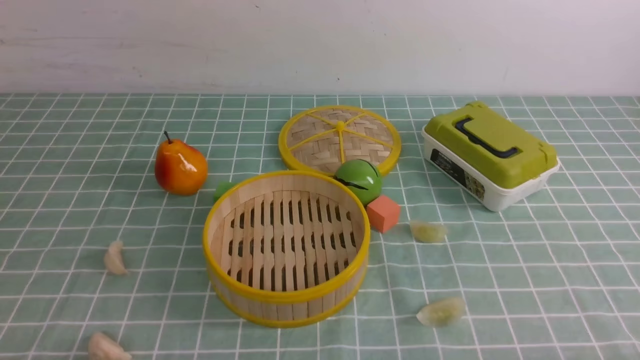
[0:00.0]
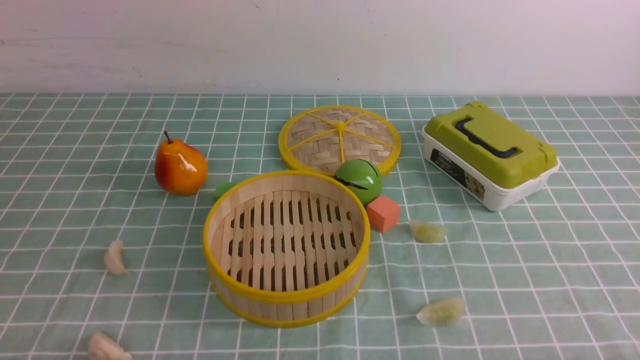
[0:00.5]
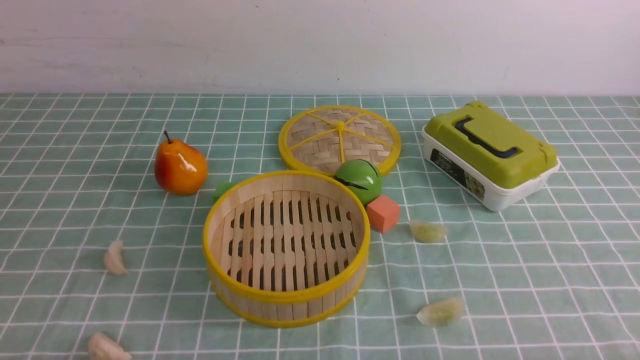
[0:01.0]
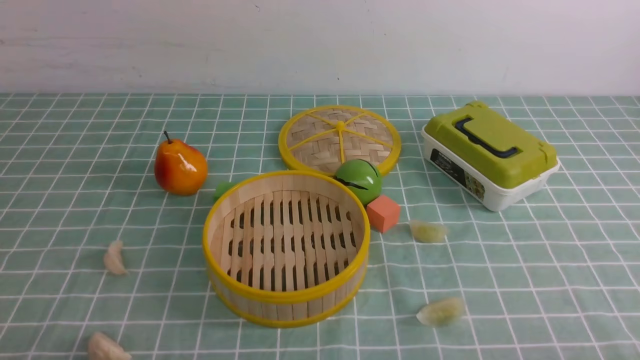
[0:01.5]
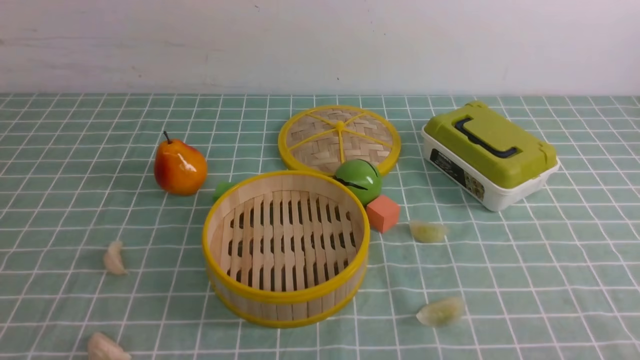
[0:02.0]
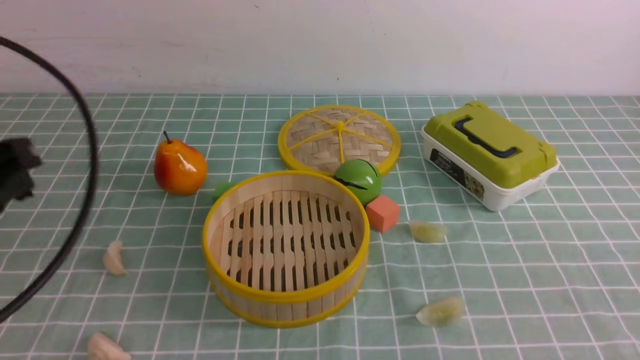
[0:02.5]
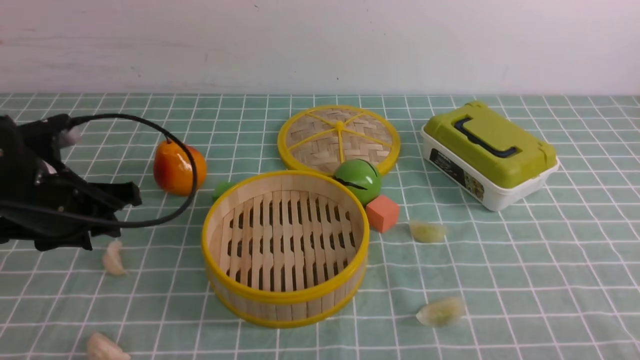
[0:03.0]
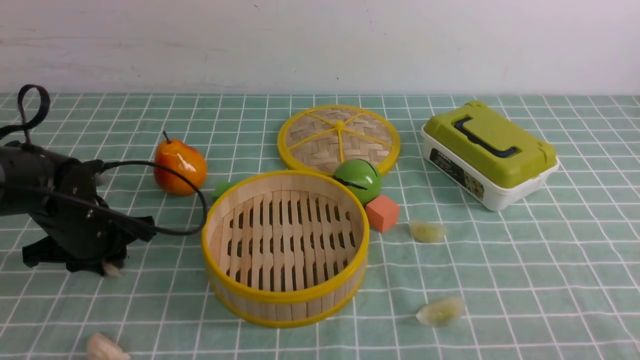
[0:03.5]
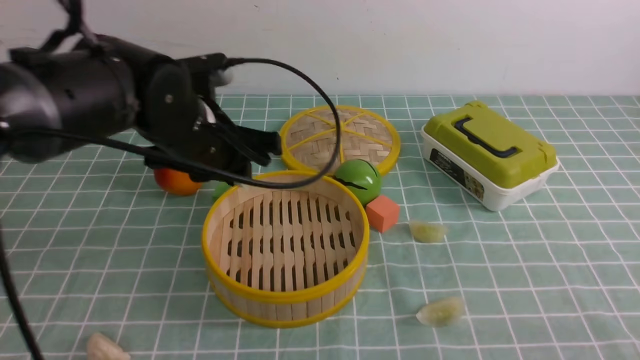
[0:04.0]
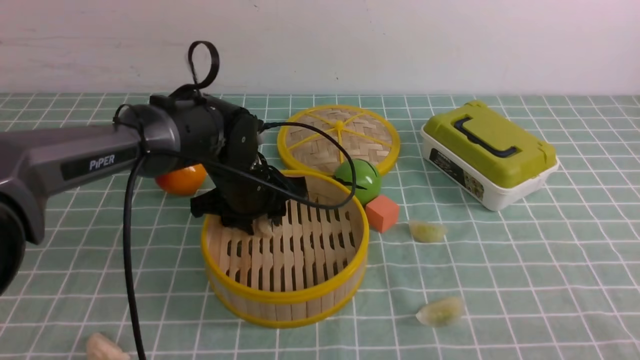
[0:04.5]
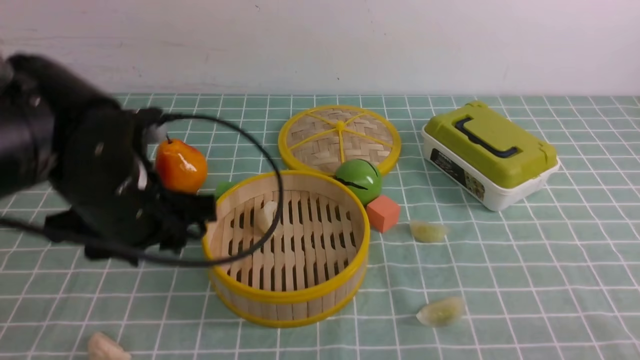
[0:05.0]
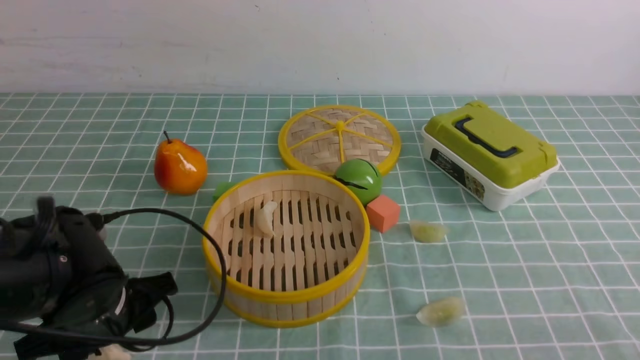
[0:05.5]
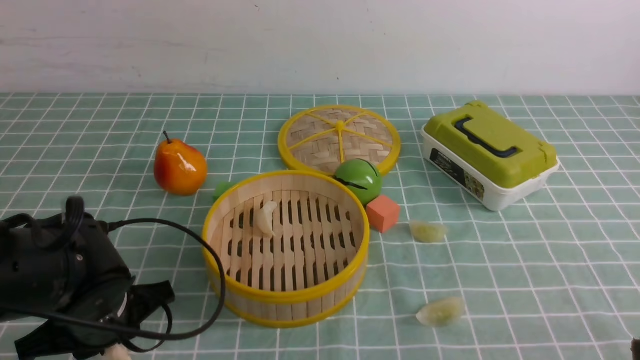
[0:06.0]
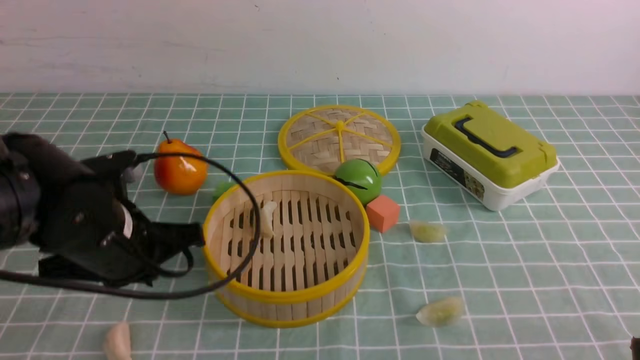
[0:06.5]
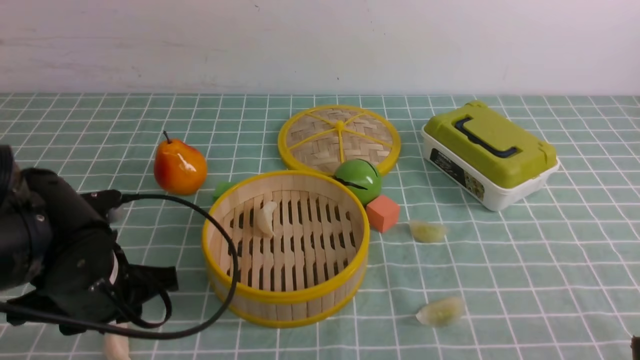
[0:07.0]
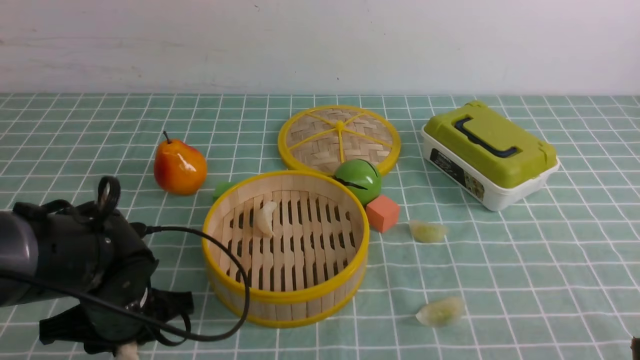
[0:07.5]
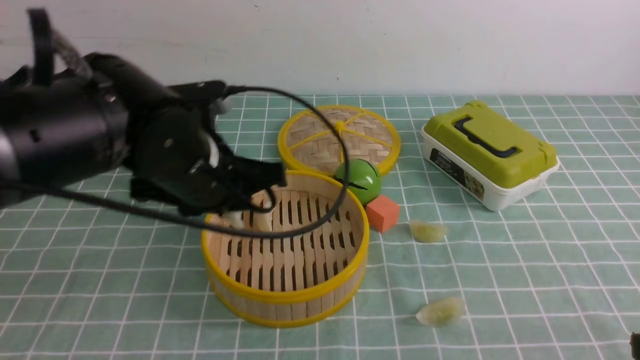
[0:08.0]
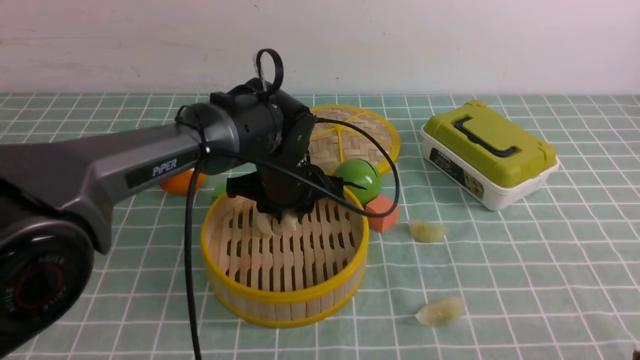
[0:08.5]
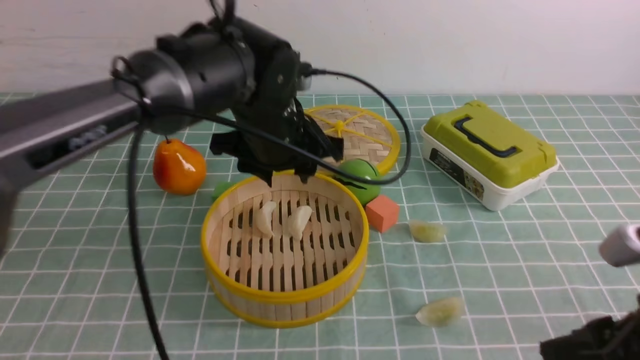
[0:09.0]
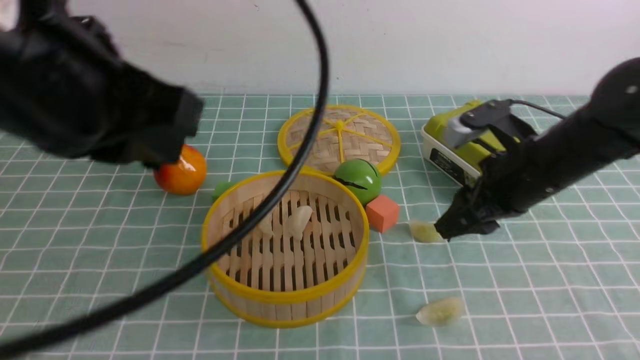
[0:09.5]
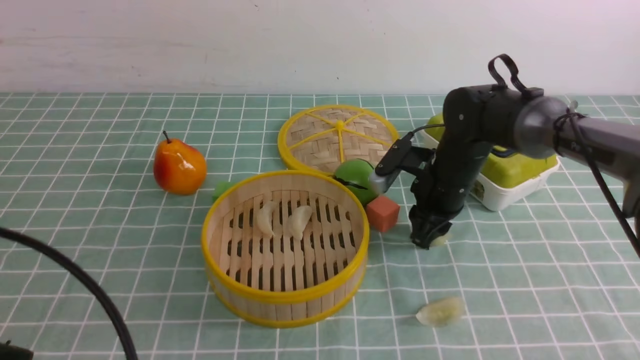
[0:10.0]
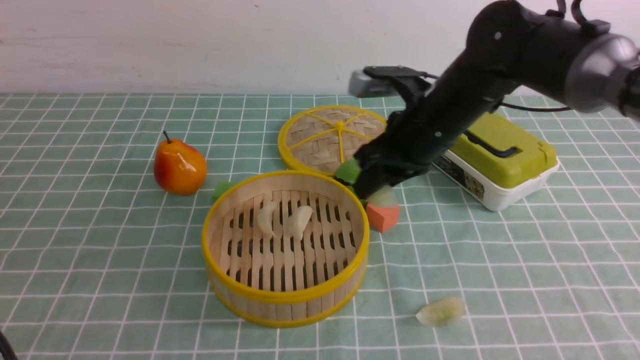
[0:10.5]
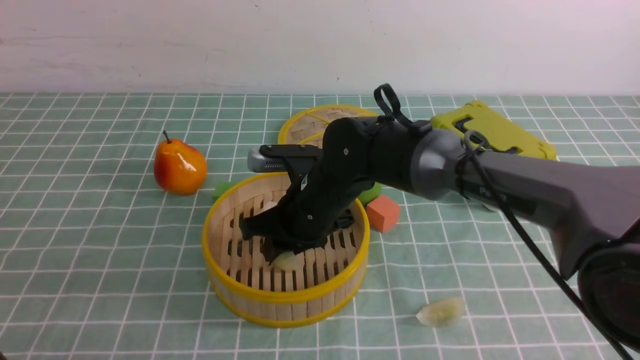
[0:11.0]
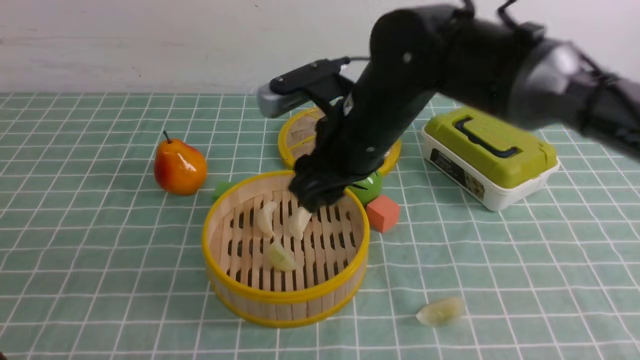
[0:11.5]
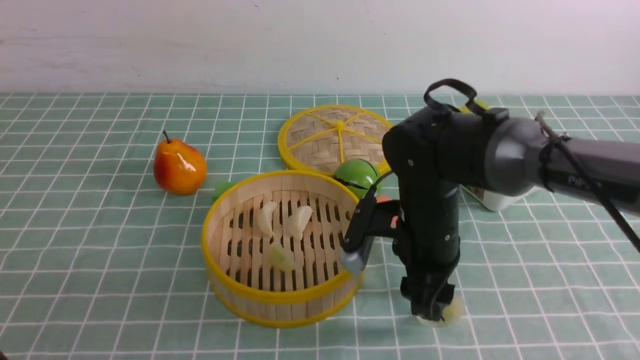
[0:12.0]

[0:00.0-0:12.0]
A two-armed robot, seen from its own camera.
Task of the whole recording: put the dumplings into the steamer on the table with the blue tablecloth.
Step, 0:00.0 to 0:03.0: use the left arm to grab a dumpling.
Step, 0:04.0 to 0:04.5: use the left arm to put the dumpling into the steamer.
Step, 0:05.0 to 0:07.5: use the left arm to grab a dumpling.
Step, 0:08.0 to 0:08.5: use the left arm to put the dumpling into the steamer.
Step, 0:09.0 to 0:10.0: use the right arm to grab a dumpling.
Step, 0:10.5 to 0:11.0: use the right arm to put the dumpling into the steamer.
0:02.0 to 0:04.0: The left gripper goes approximately 35 cm forward and to the right, while the right gripper travels forward by about 10 cm.
0:04.0 to 0:06.0: The left gripper shifts roughly 15 cm backward, downward and to the left, and opens, then closes again.
0:06.0 to 0:08.0: The left gripper goes up and down, approximately 10 cm each way, reversing 2 times, and closes, then reopens.
0:08.0 to 0:10.0: The right gripper heads forward, covering roughly 30 cm, and opens. Meanwhile the left gripper is displaced backward and to the left by approximately 25 cm.
0:10.0 to 0:12.0: The right gripper is displaced backward and to the left by roughly 10 cm; the left gripper goes approximately 5 cm downward.

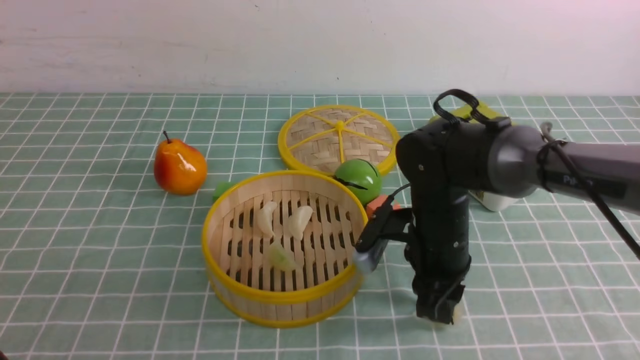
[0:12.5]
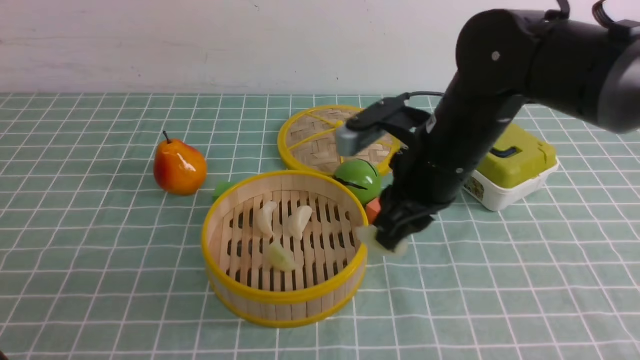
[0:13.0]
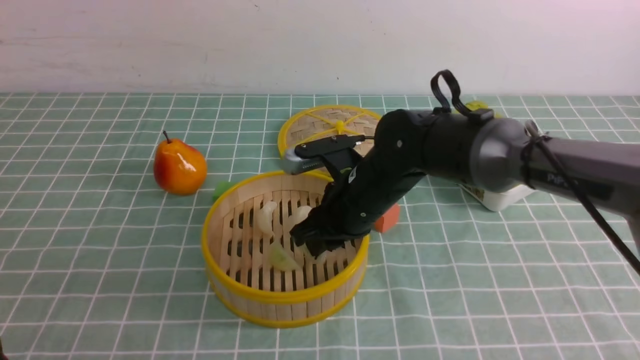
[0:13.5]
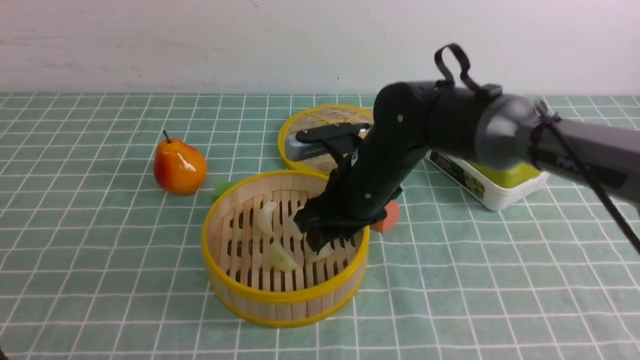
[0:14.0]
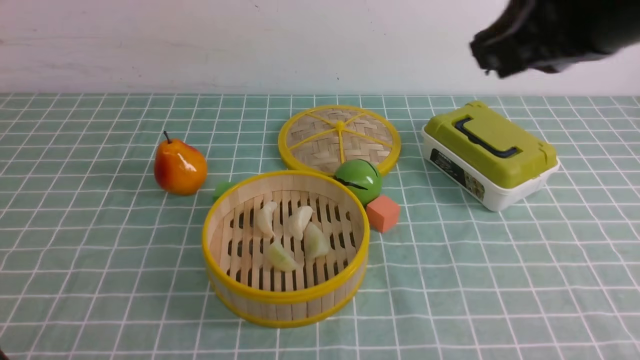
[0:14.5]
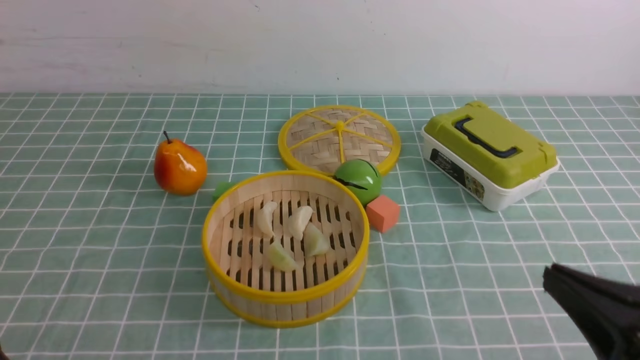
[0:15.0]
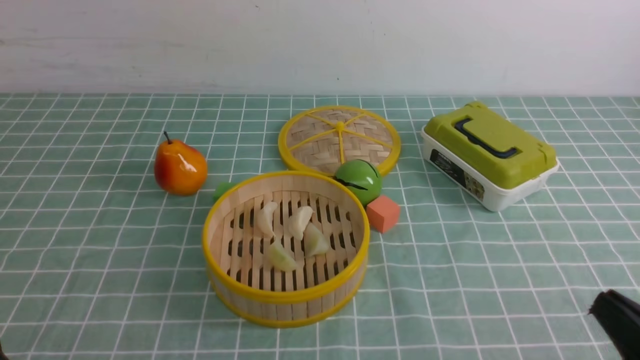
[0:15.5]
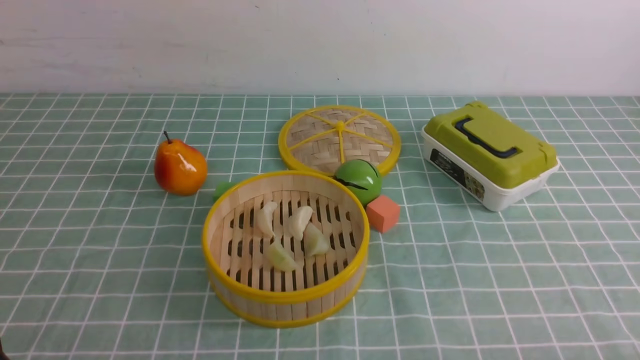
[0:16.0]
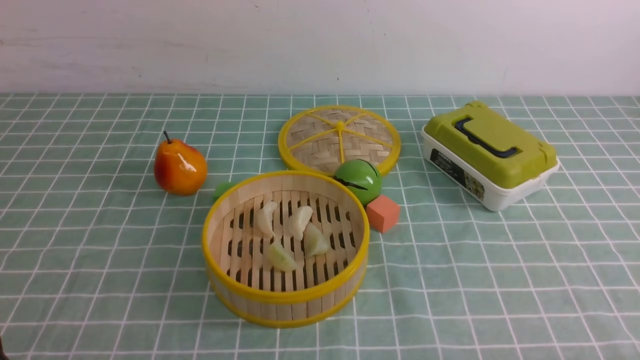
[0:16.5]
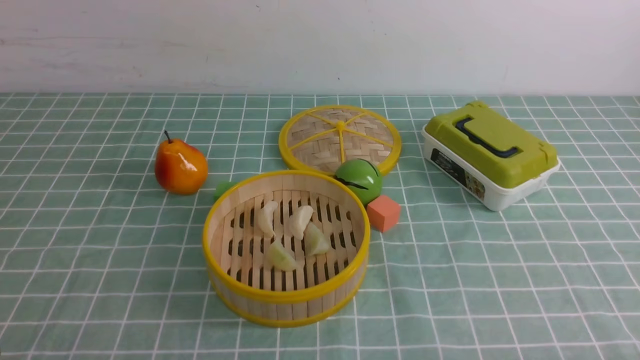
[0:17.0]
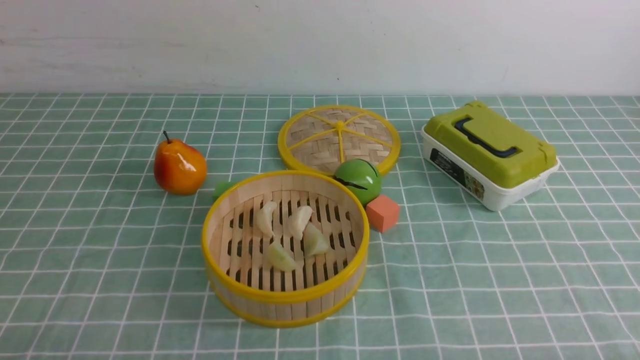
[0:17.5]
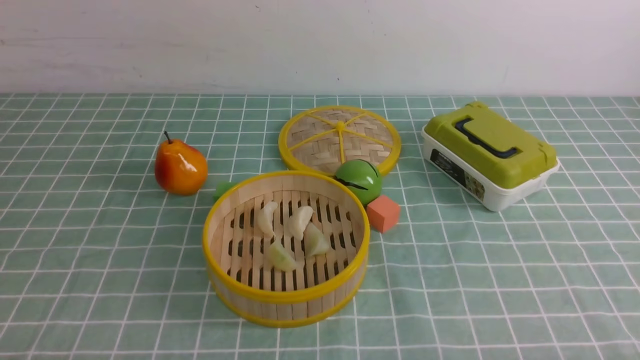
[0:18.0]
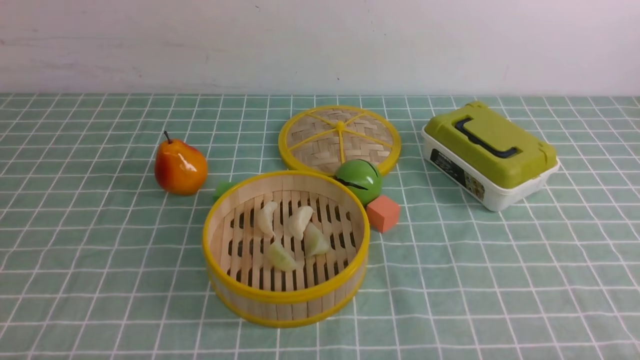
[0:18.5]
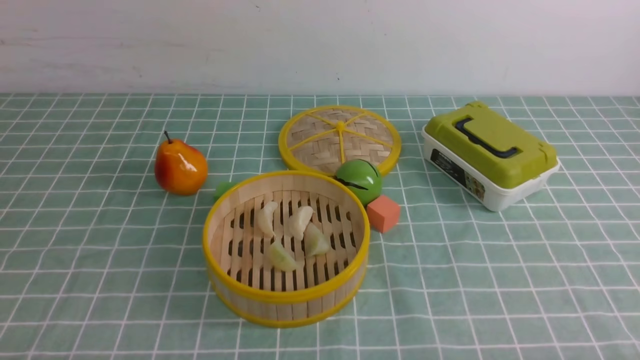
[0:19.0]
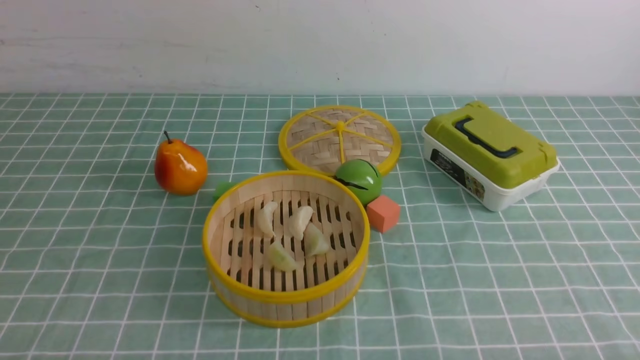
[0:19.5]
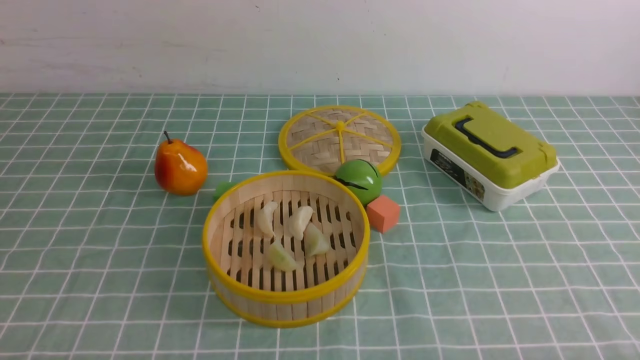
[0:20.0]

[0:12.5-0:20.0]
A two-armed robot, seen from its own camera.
Task of the whole recording: put the dumplings into the steamer on the table with the blue tablecloth.
Step, 0:13.0 to 0:14.0: use the right arm to put the dumpling into the steamer.
0:12.5 to 0:14.5: The right gripper goes up and down, some 25 cm each way, reversing 2 times, and closes its fingers.
0:14.5 to 0:16.5: The right gripper goes approximately 35 cm downward, backward and to the right.
0:18.0 to 0:20.0: Neither gripper changes place.
